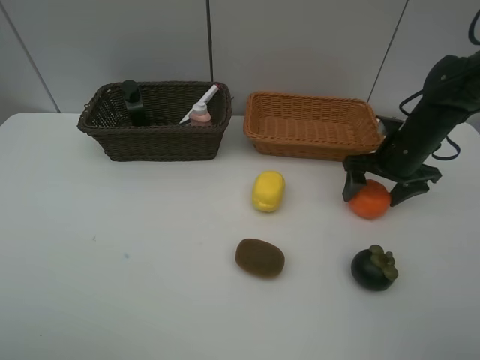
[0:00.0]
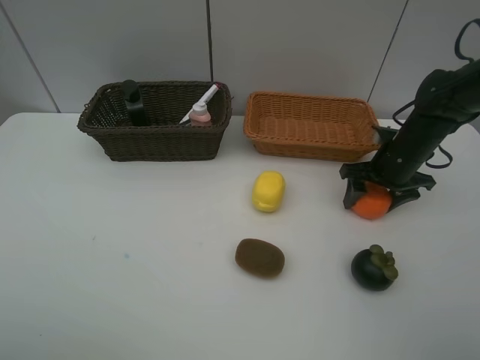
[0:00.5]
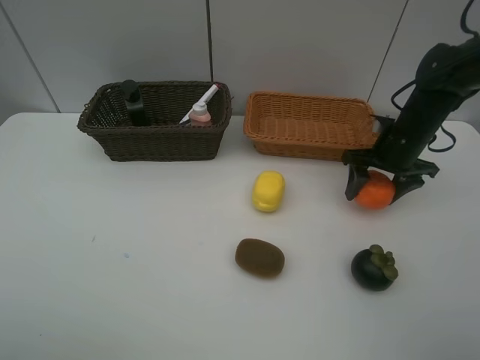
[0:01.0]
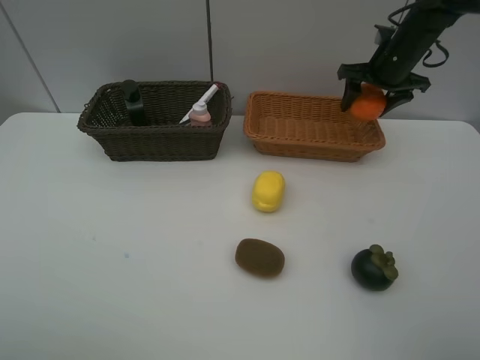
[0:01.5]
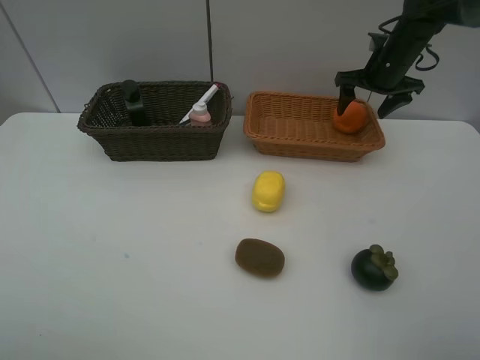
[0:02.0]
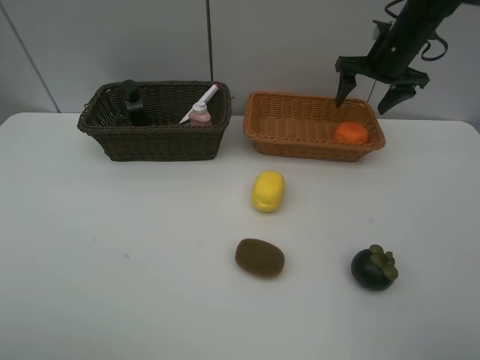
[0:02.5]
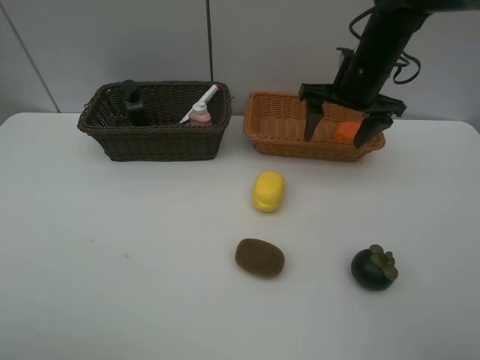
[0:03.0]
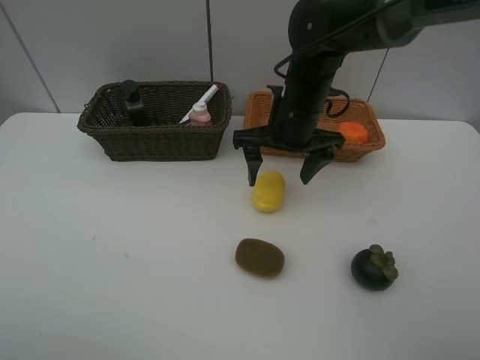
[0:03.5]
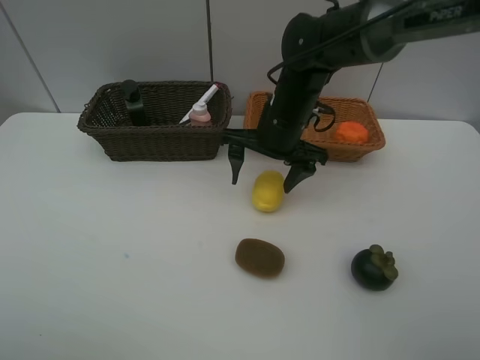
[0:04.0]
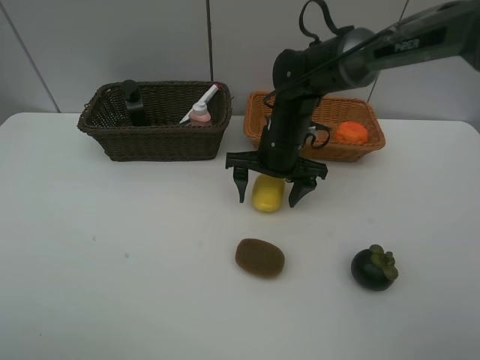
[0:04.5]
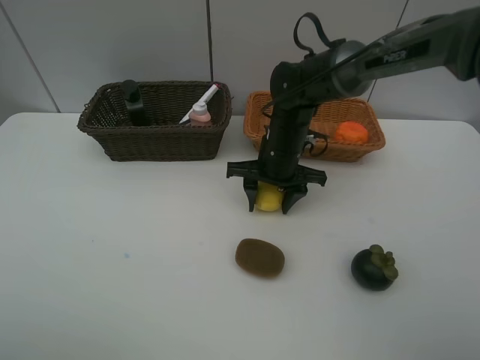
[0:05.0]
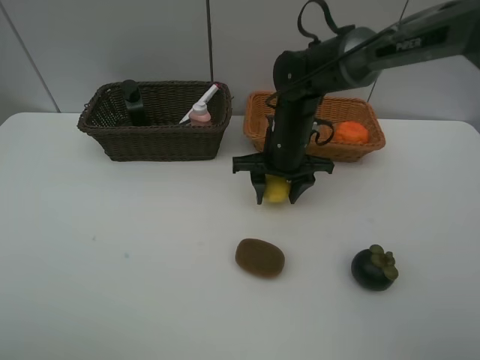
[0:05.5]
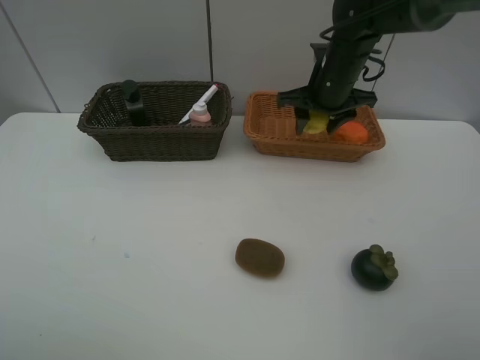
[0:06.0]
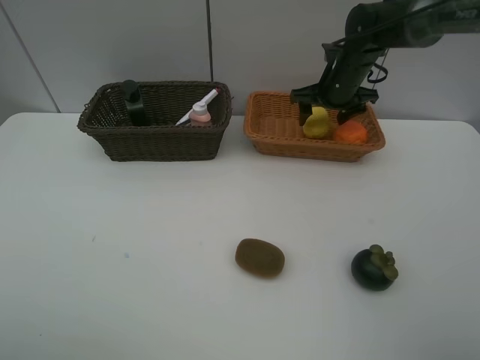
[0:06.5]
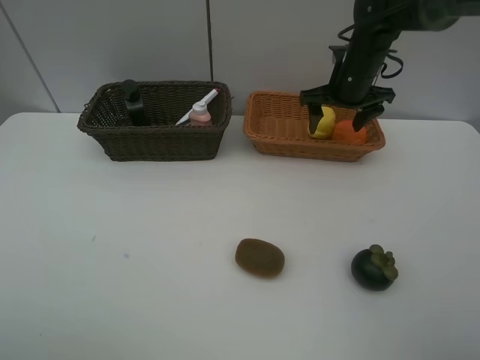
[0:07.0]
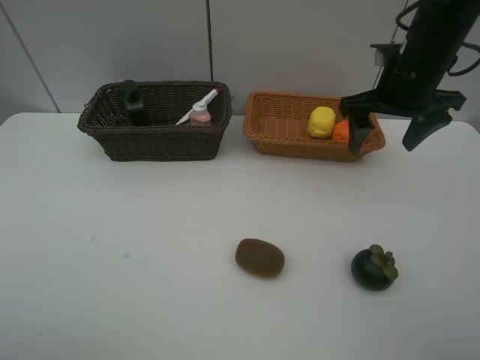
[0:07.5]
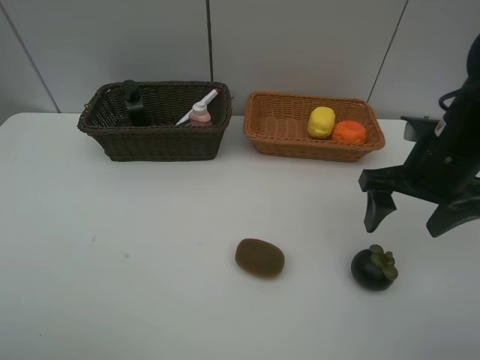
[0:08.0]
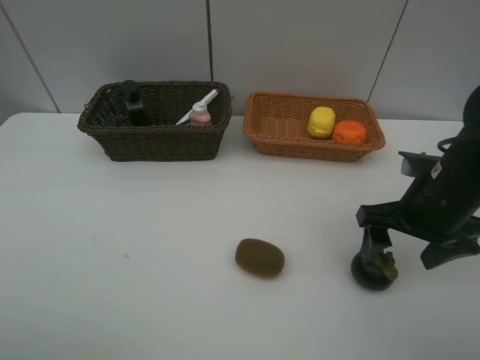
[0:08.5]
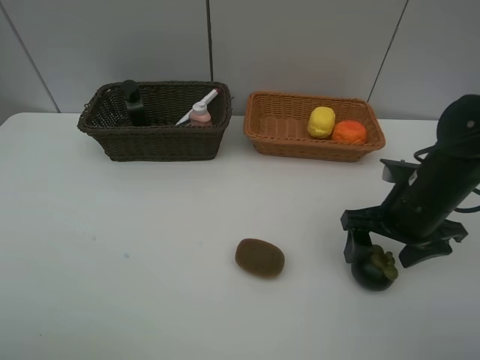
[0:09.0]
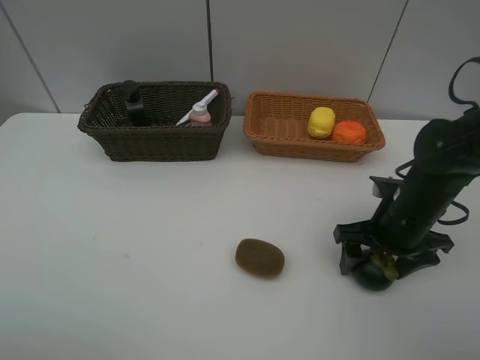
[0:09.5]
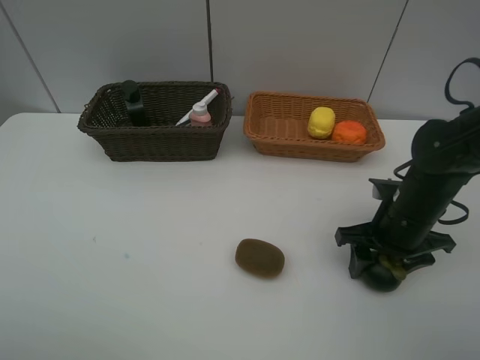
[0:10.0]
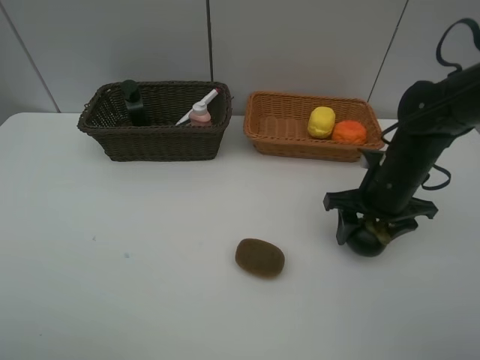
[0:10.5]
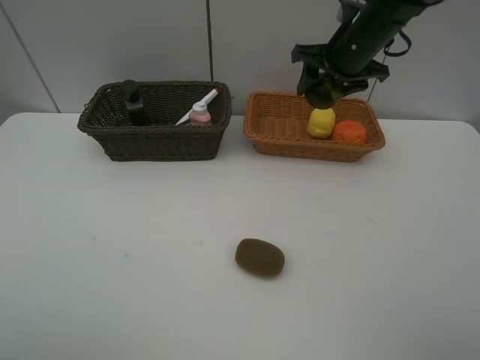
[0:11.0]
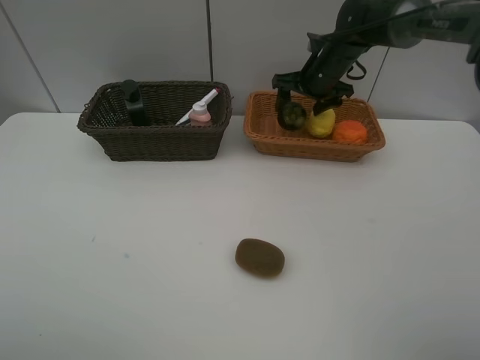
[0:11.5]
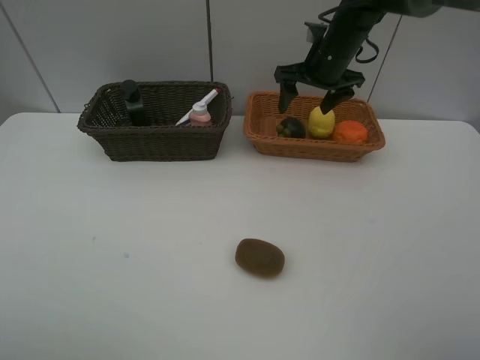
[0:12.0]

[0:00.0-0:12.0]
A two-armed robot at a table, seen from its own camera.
Task of the whole recording: Place multiple objects separately in different baskets.
Step, 0:01.5 to 0:02.0: Place the orange in the light basket with right gripper.
Step, 0:02.5 to 0:05.5: Pick up the lemon with right gripper.
Step, 0:06.0 to 0:07.0: Place the lemon in the light basket with right gripper.
Step, 0:07.5 to 0:10.5: Pick up the mangosteen with right gripper.
Step, 0:11.0 to 0:11.5: Place the mangosteen in the light basket with right gripper.
0:00.0 to 0:02.0: The right gripper is displaced forward and upward by roughly 15 cm, and closes and opens again.
0:02.0 to 0:04.0: The right gripper is displaced to the left and backward by some 25 cm.
0:04.0 to 0:06.0: The right gripper heads to the right and forward, covering roughly 10 cm, and closes.
0:06.0 to 0:08.0: The right gripper shifts approximately 20 cm backward and to the right, and opens.
0:08.0 to 0:10.0: The right gripper moves downward, roughly 10 cm, and closes.
0:10.0 to 0:12.0: The right gripper is displaced forward and upward by about 25 cm, and opens up.

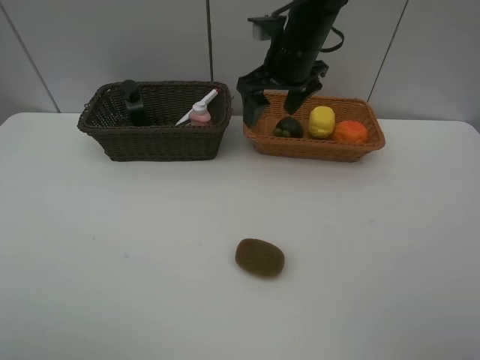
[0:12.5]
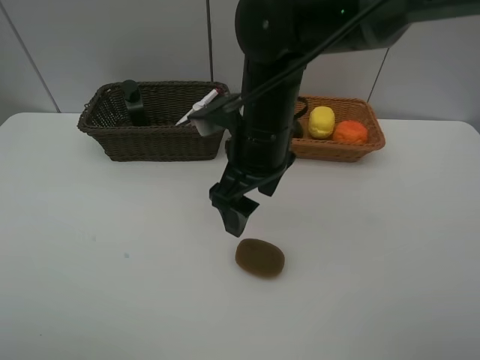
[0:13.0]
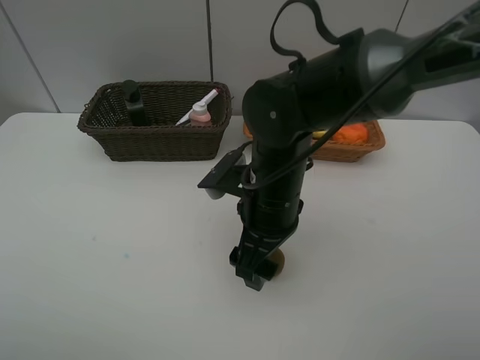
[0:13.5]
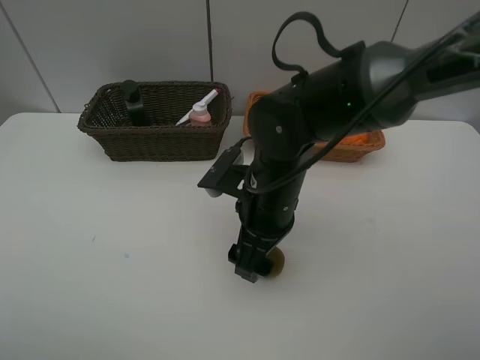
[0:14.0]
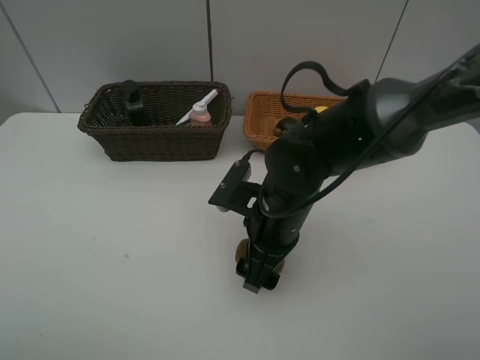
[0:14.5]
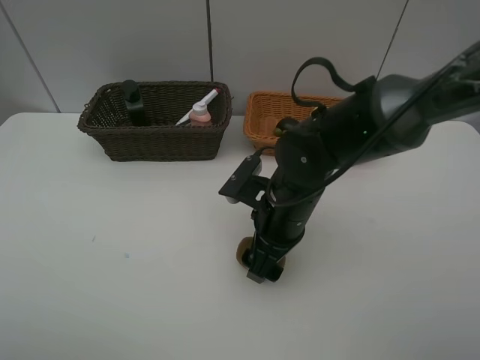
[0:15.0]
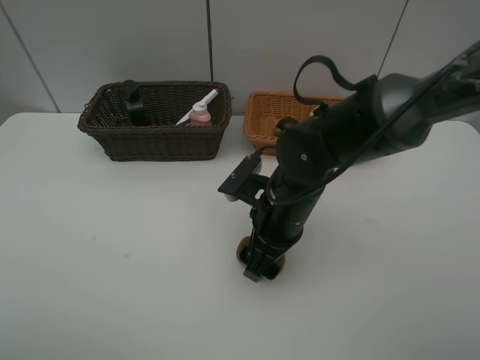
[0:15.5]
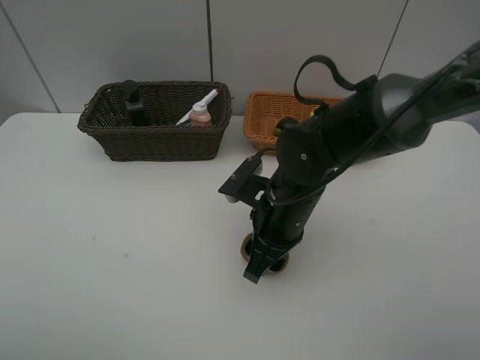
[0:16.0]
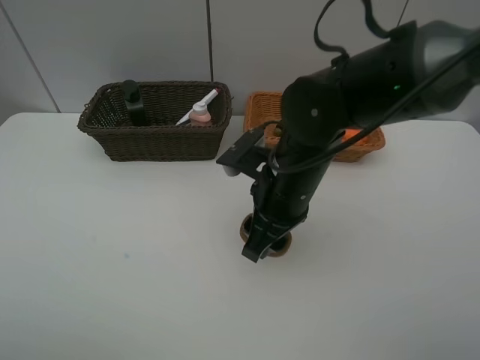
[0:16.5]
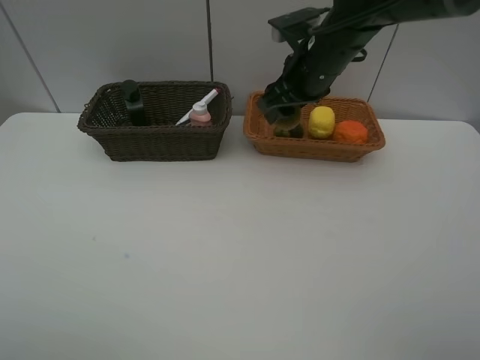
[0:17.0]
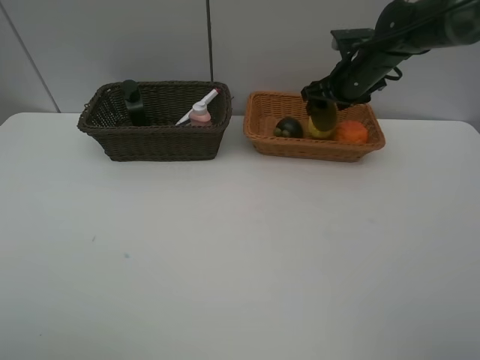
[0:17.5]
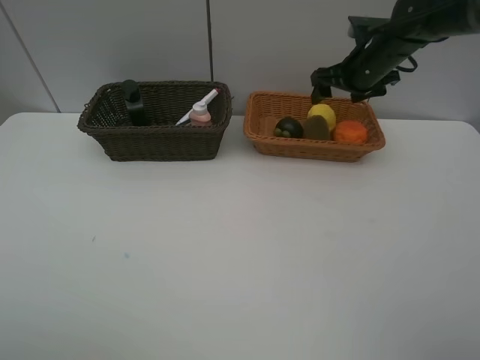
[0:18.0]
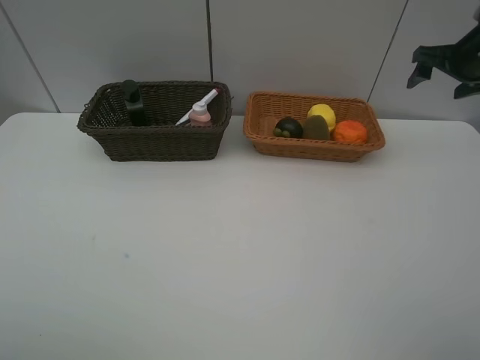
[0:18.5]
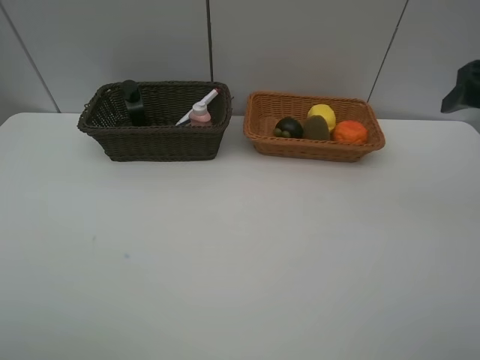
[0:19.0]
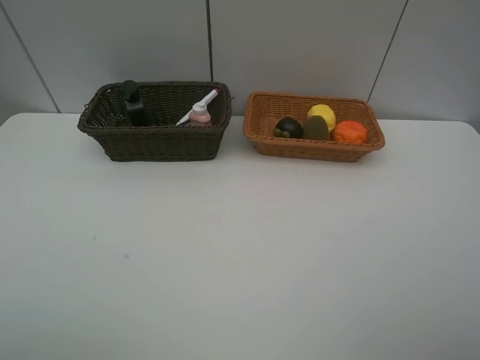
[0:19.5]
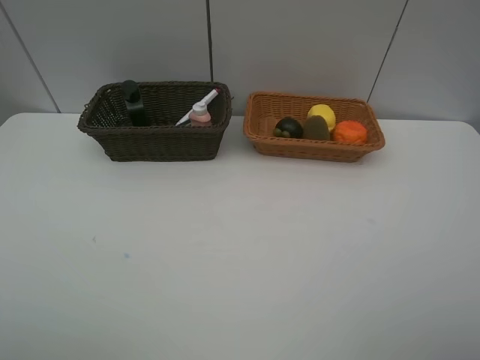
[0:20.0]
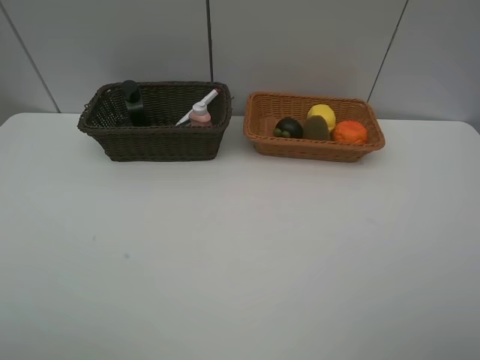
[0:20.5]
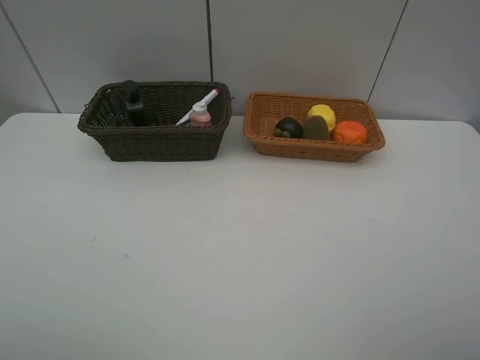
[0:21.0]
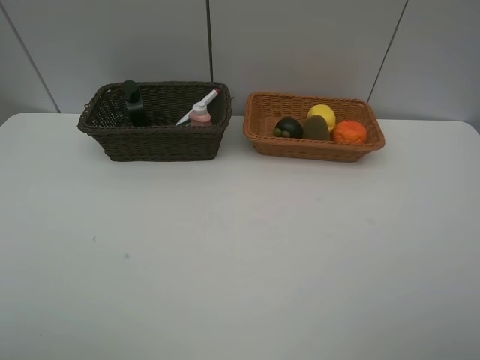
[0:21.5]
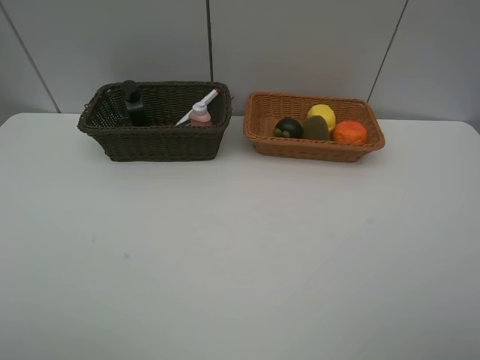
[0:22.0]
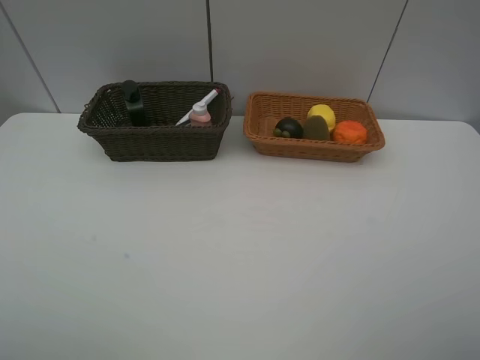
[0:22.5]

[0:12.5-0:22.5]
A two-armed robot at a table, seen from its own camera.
Task of the whole recording: Place multiple objects separately in different baskets.
Step, 0:12.5 to 0:16.0: Pick up kiwi with right gripper.
Step, 0:16.5 to 0:17.5: Place the kiwi in the light basket with right gripper.
0:12.5 to 0:14.5: The right gripper shifts roughly 20 cm backward and downward.
0:14.5 to 0:16.5: The right gripper moves upward, some 5 cm, and closes up.
0:16.5 to 0:18.5: The right gripper shifts about 35 cm to the right and forward, and opens.
0:18.5 to 0:20.5: The right gripper travels backward by some 40 cm.
0:20.5 to 0:22.5: The two grippers keep their place.

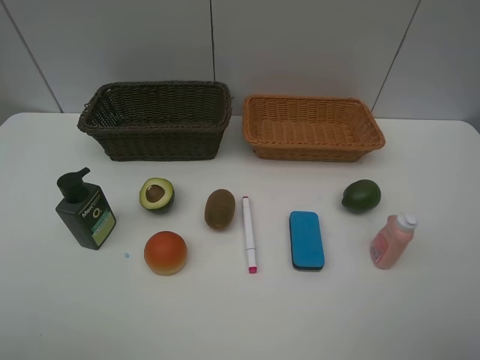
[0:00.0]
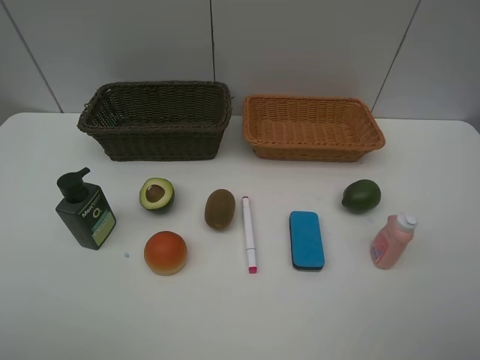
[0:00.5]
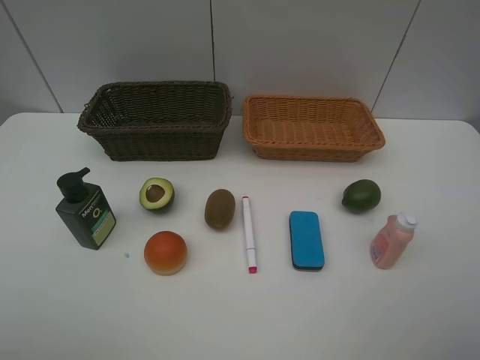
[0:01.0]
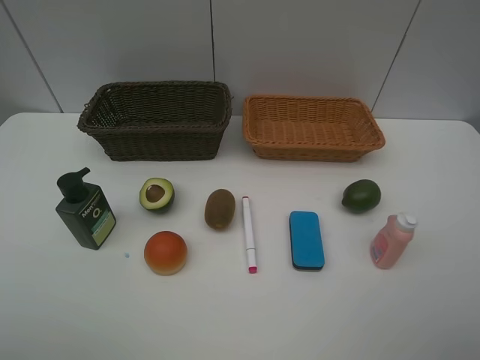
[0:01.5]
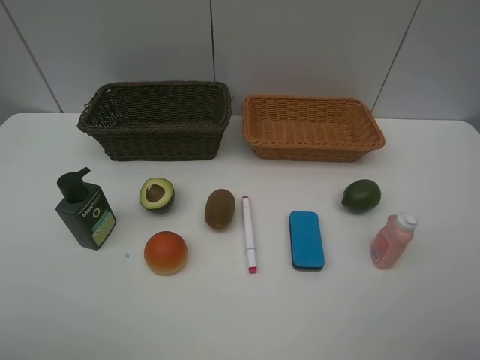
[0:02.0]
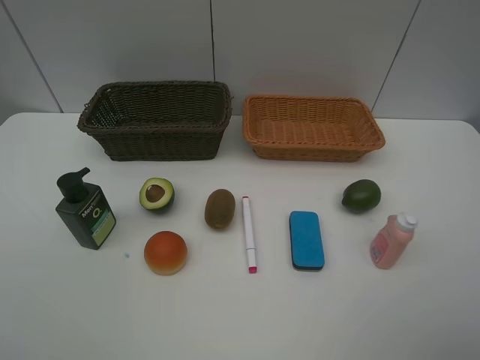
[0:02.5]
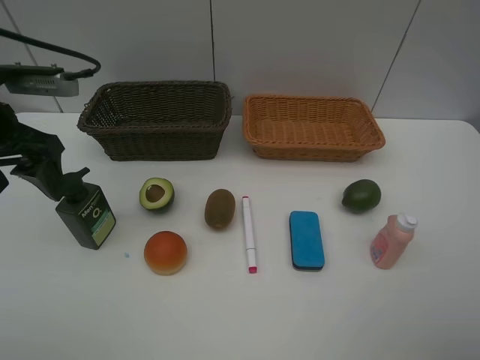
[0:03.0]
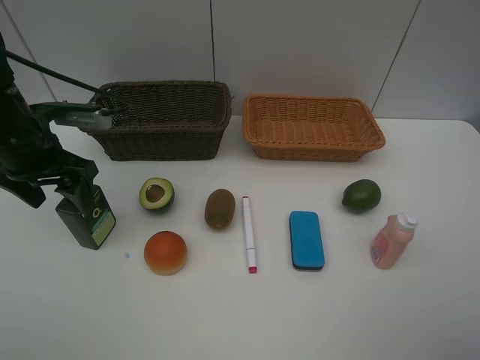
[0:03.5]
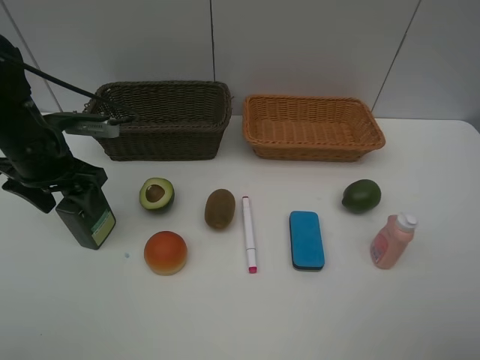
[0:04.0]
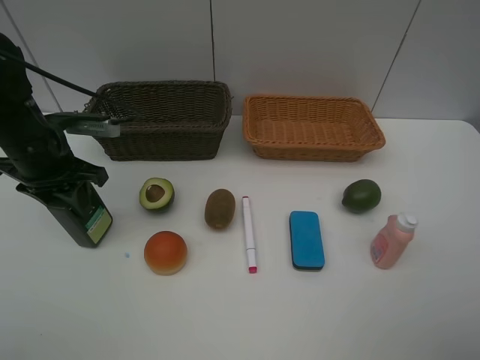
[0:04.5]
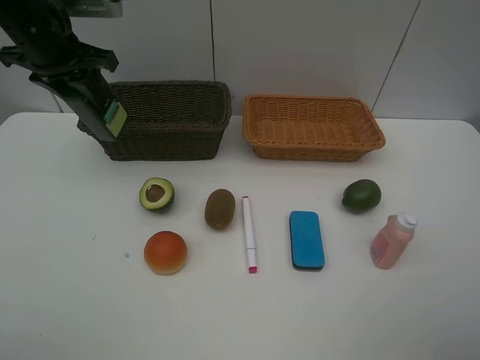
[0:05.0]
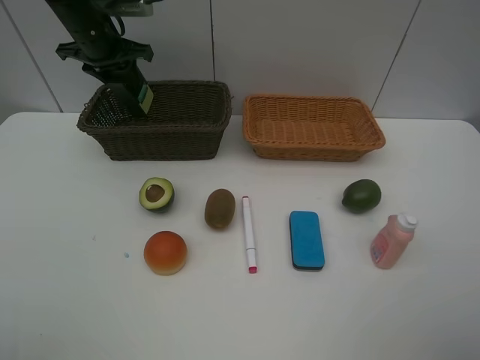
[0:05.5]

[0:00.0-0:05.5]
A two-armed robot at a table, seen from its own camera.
Task of the whole recording: Place multiple objects separately in different baskets.
Step, 0:00.0 to 0:04.5: Pick up the hard facial cleanser with left gripper.
0:00.0 to 0:02.0: Neither gripper changes place.
0:02.0 to 0:03.5: The left gripper shifts roughly 30 cm forward.
0:03.5 to 0:05.5: The left gripper heads forward, covering some 20 cm, and closes its fingers.
